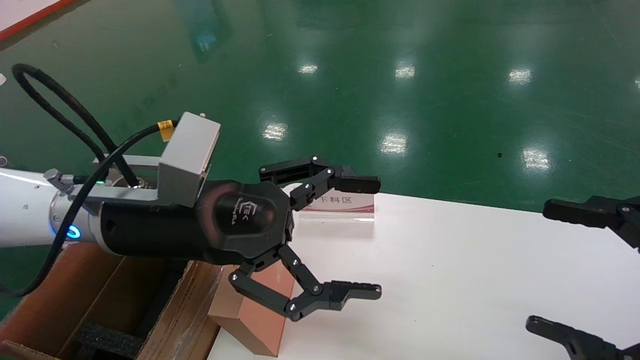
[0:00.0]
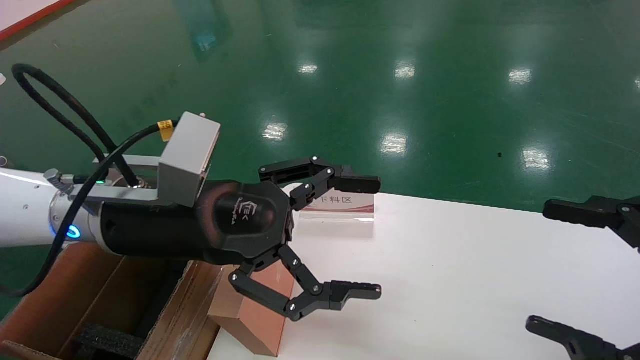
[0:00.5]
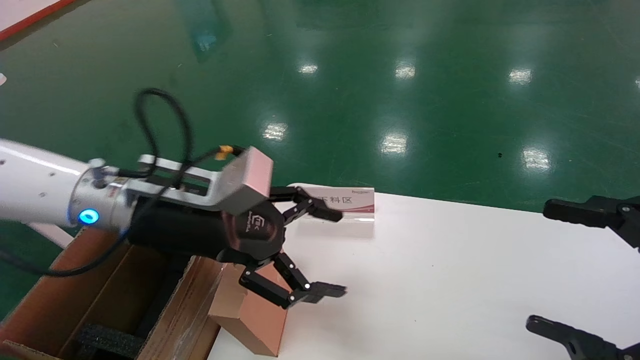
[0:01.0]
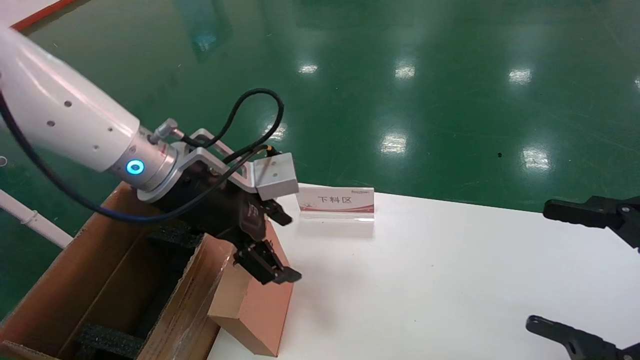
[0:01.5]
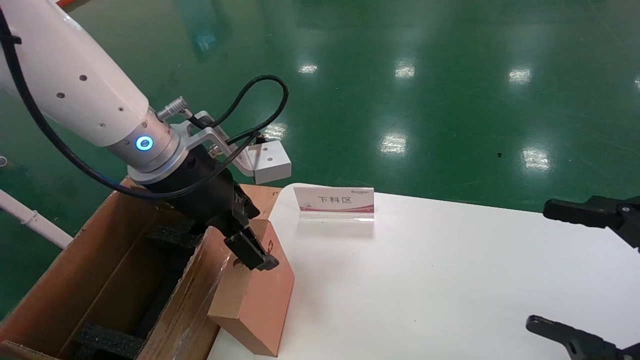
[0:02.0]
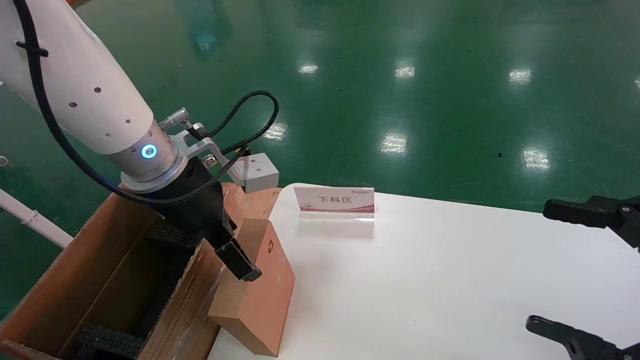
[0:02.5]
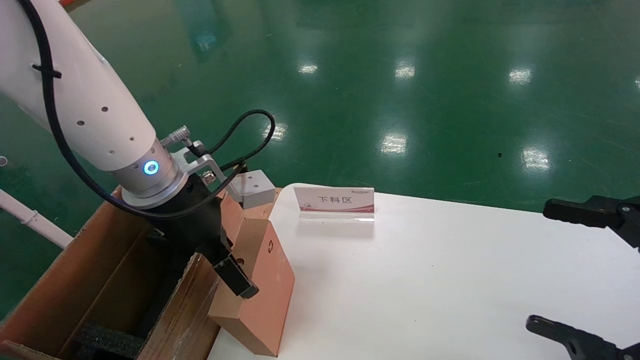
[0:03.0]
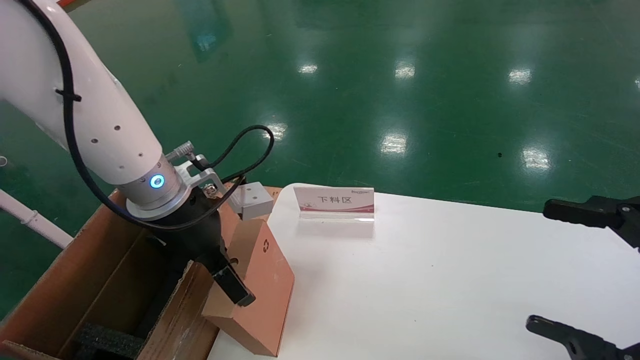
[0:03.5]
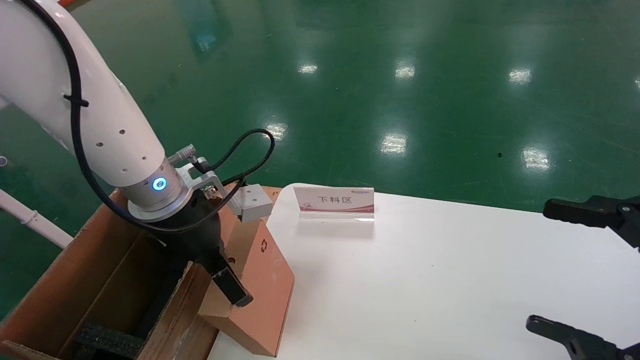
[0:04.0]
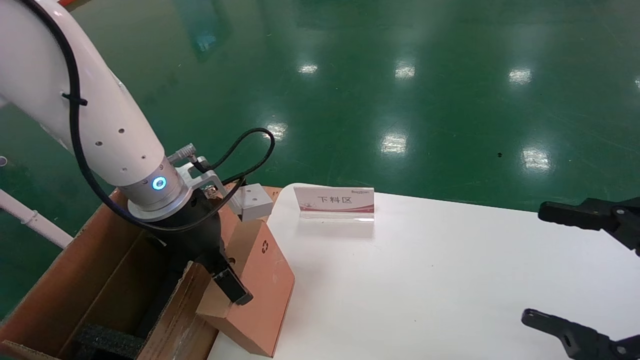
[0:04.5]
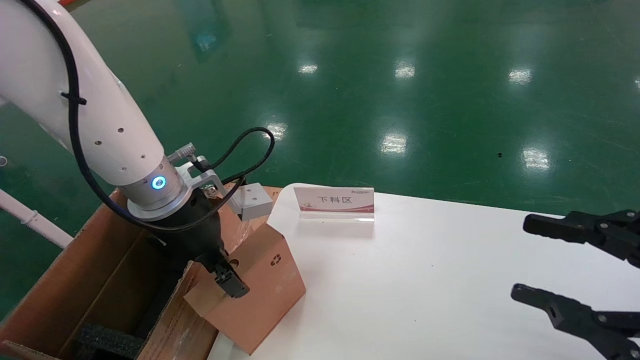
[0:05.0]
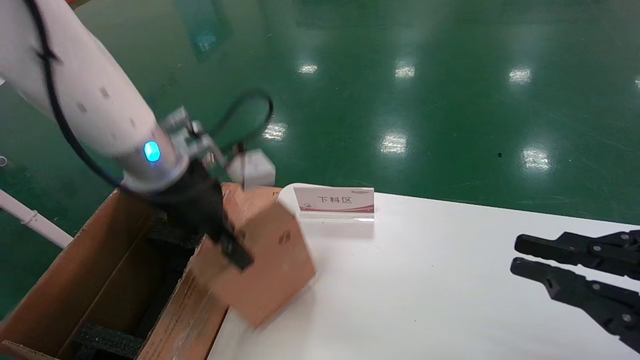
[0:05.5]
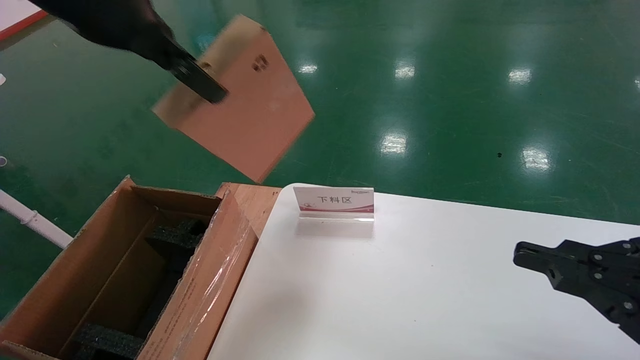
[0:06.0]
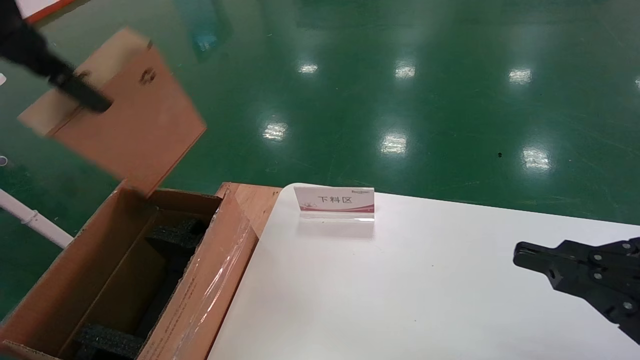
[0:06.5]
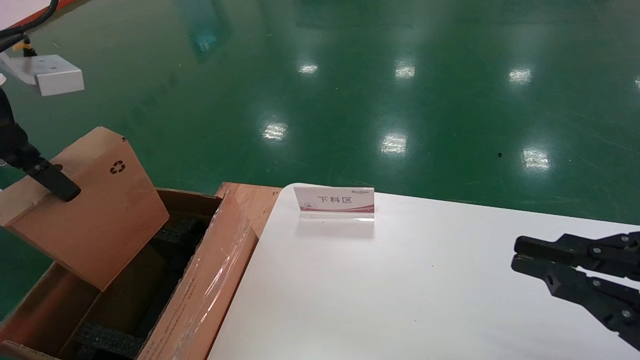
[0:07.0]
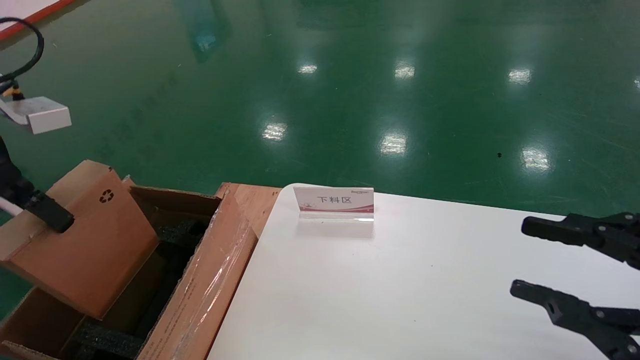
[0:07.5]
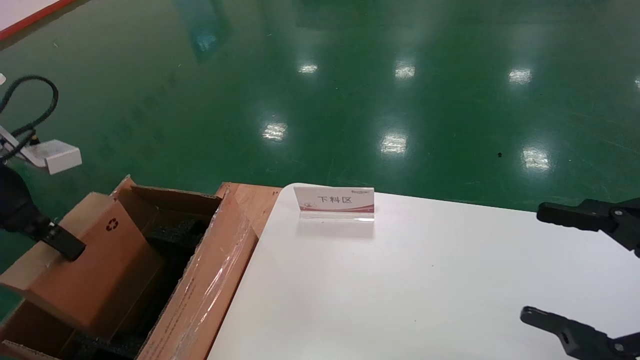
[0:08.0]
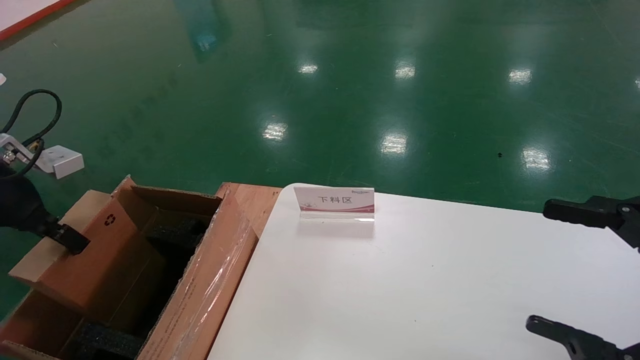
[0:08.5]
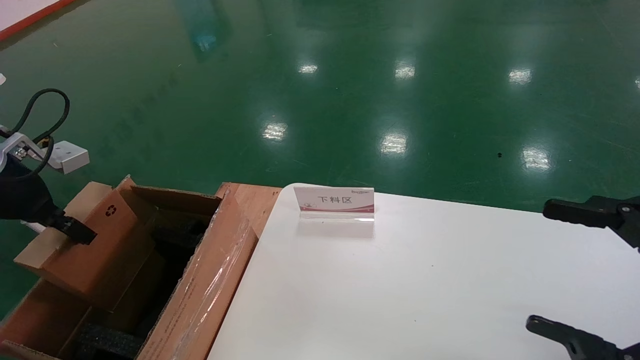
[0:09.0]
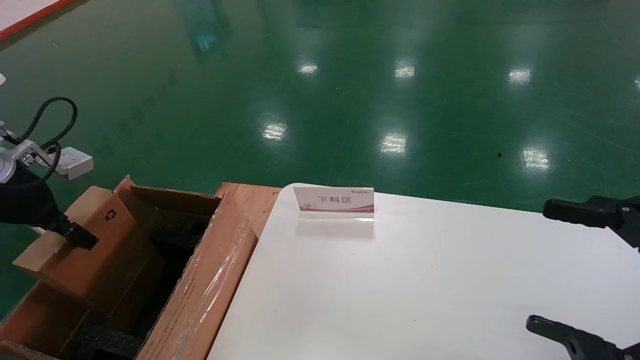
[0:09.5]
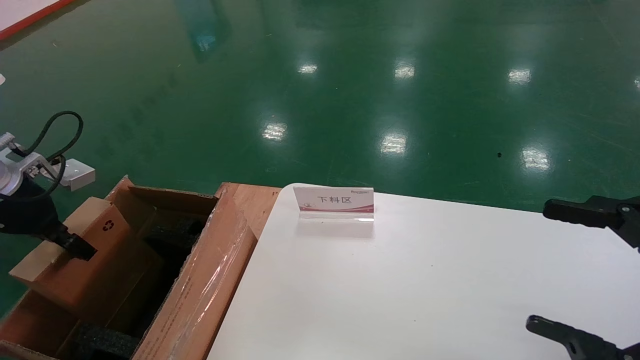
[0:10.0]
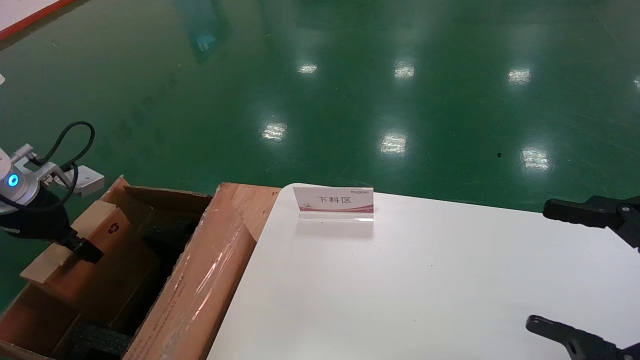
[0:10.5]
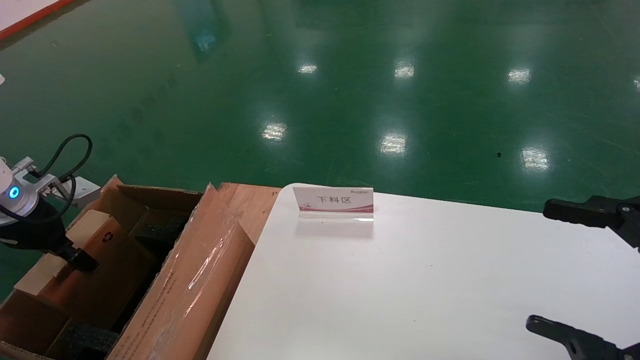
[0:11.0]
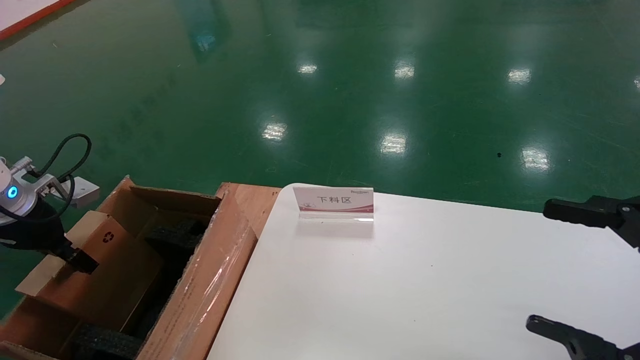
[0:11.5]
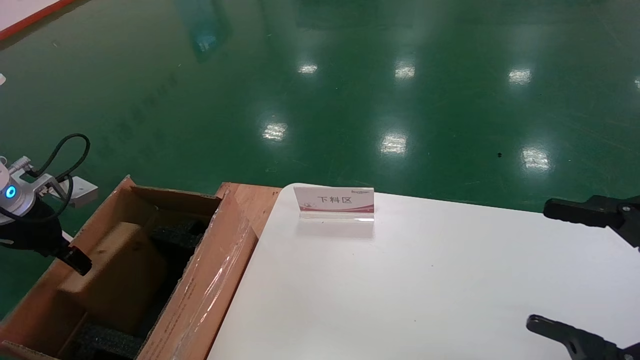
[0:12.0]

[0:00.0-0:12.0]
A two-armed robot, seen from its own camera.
Task of the whole recording: pick up the small cardboard box and load it into the large cardboard box.
Step, 0:01.0 to 0:05.0: Pick up the mouse and power cord box.
0:00.0 to 0:02.0: The left gripper heads forward, covering about 5 cm.
0:02.0 to 0:04.0: The left gripper changes place by approximately 5 cm.
0:04.0 to 0:06.0: The right gripper closes, while the left gripper shifts roughly 20 cm upward, and closes up.
0:06.0 to 0:08.0: The left gripper moves to the left and downward, roughly 25 cm, while the right gripper opens.
0:08.0 to 0:10.0: The left gripper shifts about 10 cm downward and forward.
0:10.0 to 0:12.0: The left gripper opens its fingers.

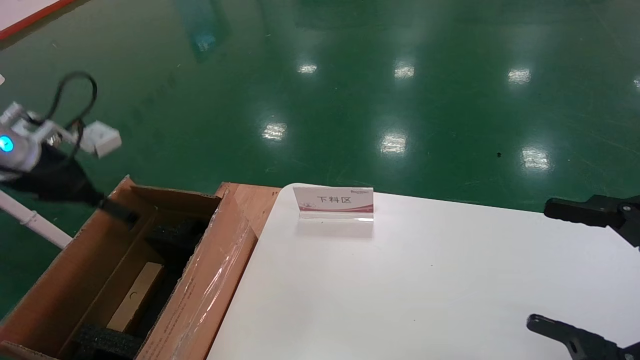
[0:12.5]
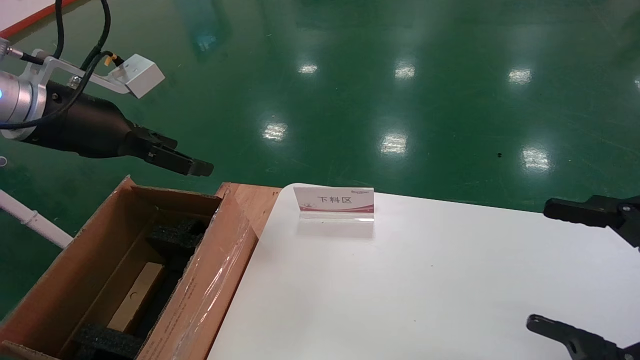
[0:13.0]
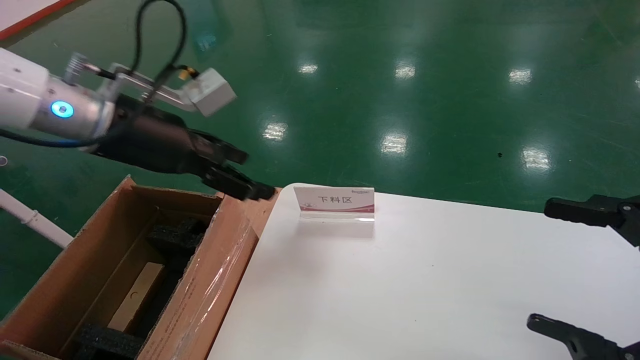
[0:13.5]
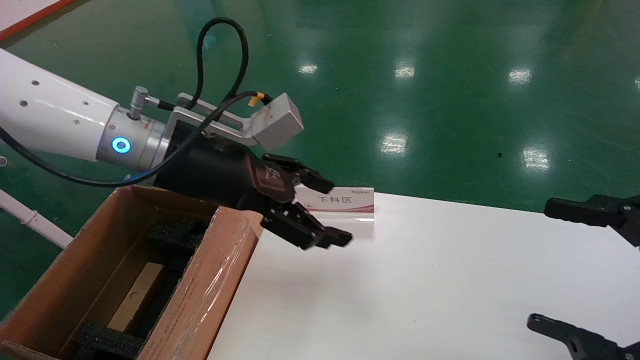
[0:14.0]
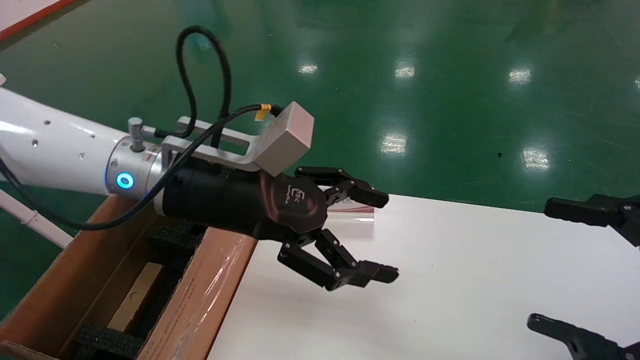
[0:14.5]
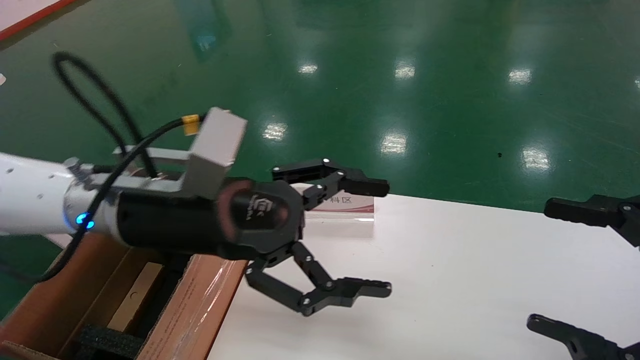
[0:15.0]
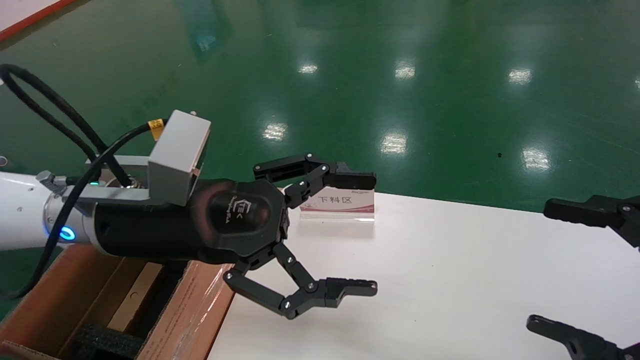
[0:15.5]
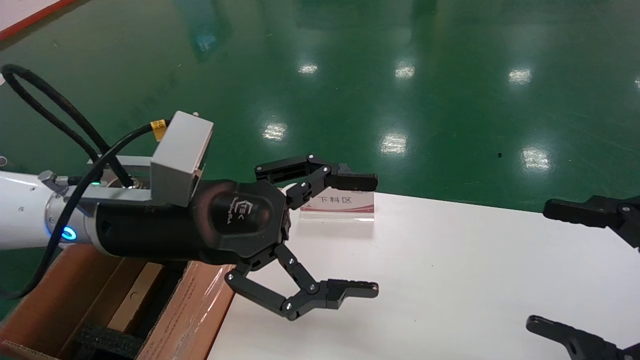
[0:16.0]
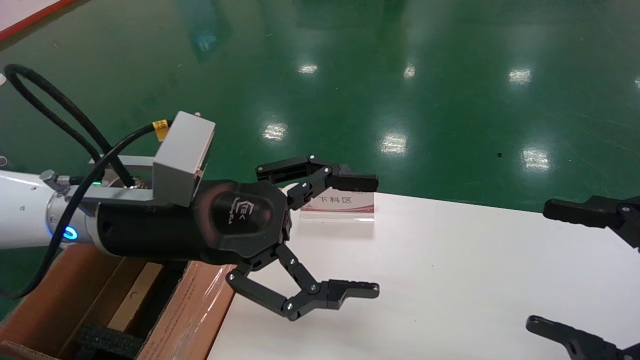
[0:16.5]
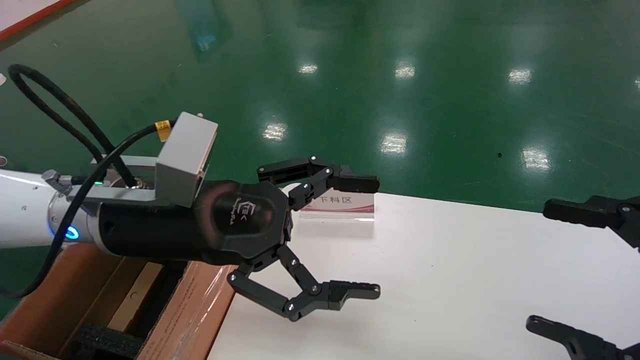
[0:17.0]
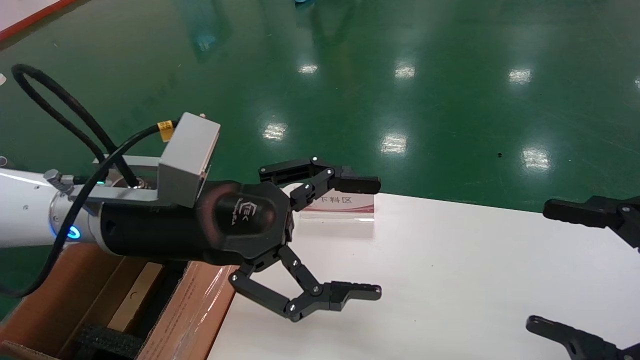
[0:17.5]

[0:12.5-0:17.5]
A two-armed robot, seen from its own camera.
Task of the whole recording: pick up the small cardboard box and load it into the large cardboard box.
0:12.5 to 0:15.0: The left gripper goes approximately 25 cm to the right.
0:15.0 to 0:17.5: The grippers make only small movements.
